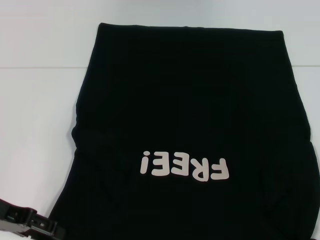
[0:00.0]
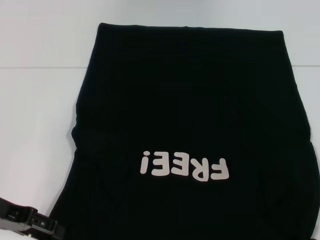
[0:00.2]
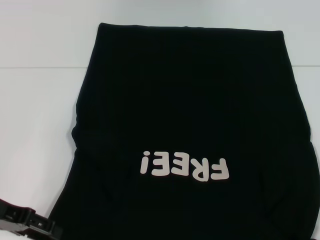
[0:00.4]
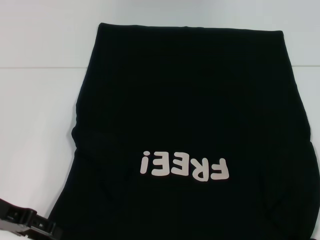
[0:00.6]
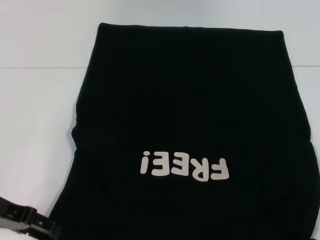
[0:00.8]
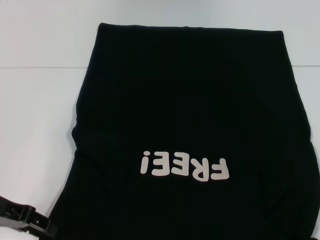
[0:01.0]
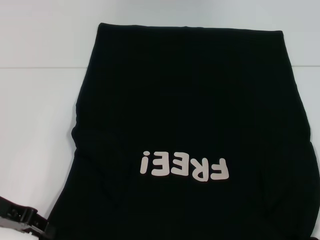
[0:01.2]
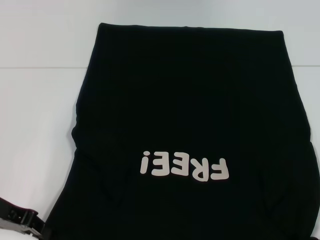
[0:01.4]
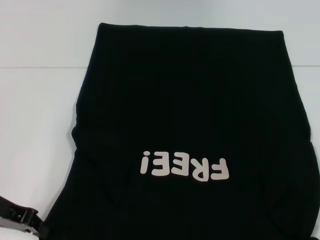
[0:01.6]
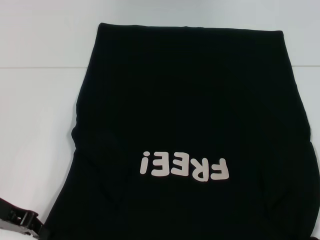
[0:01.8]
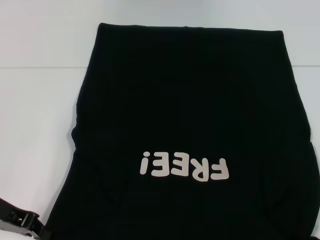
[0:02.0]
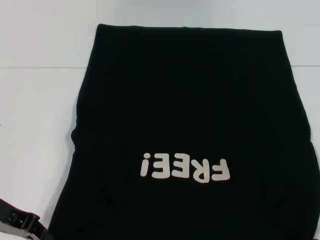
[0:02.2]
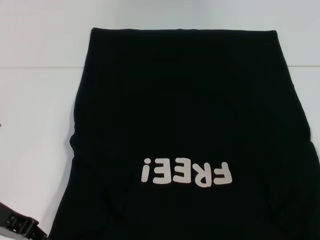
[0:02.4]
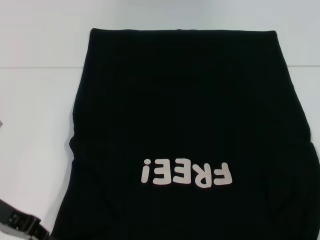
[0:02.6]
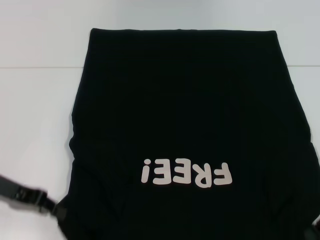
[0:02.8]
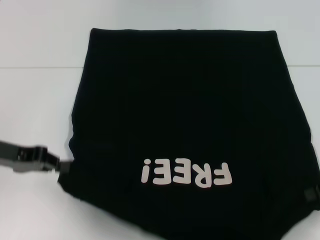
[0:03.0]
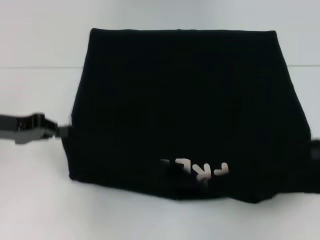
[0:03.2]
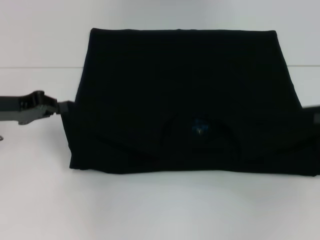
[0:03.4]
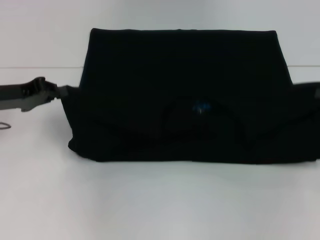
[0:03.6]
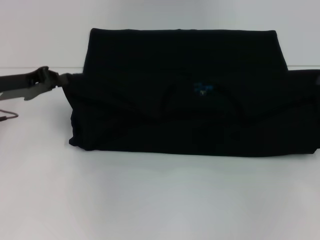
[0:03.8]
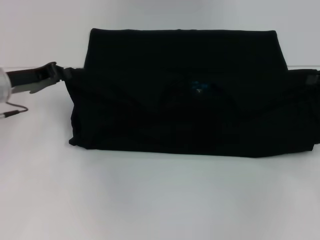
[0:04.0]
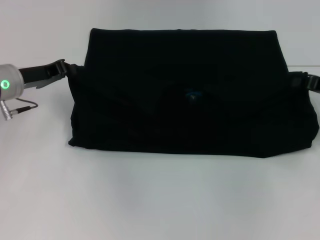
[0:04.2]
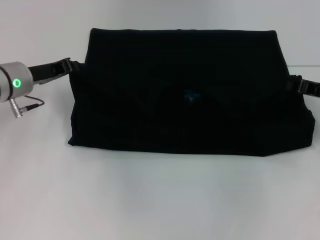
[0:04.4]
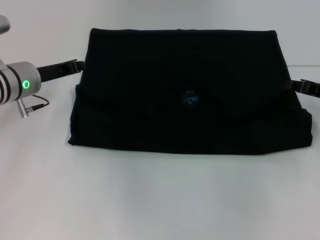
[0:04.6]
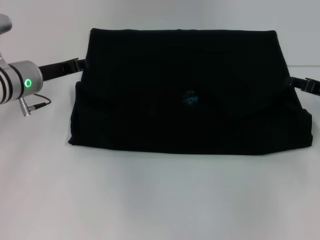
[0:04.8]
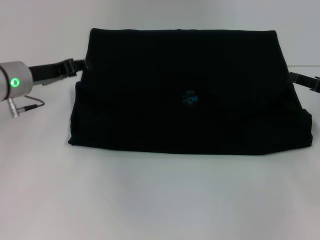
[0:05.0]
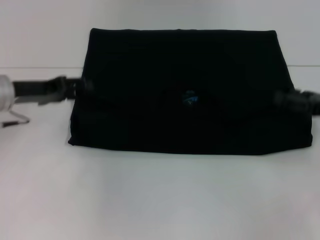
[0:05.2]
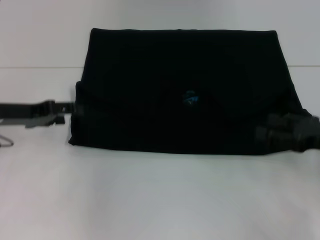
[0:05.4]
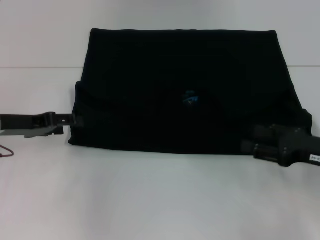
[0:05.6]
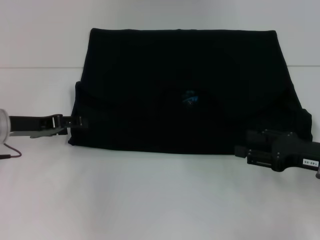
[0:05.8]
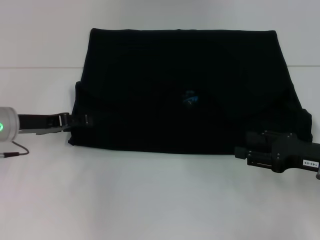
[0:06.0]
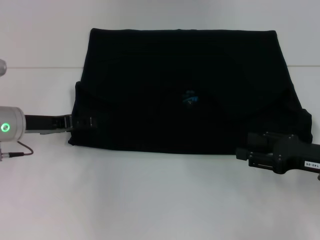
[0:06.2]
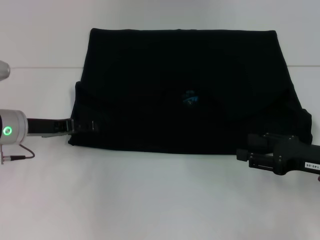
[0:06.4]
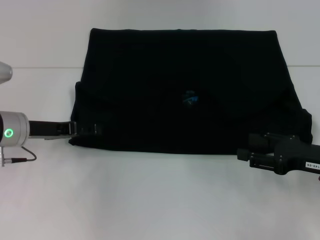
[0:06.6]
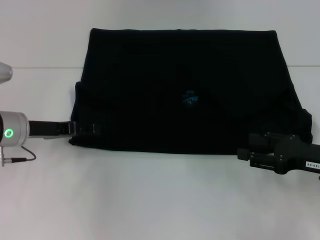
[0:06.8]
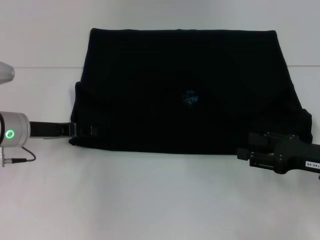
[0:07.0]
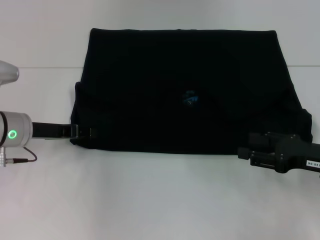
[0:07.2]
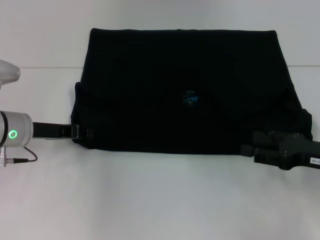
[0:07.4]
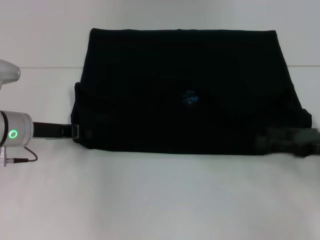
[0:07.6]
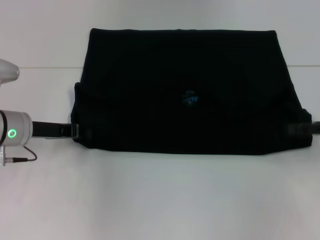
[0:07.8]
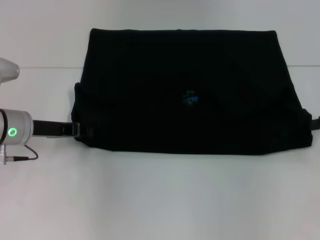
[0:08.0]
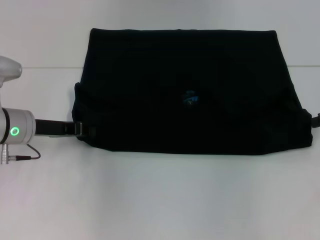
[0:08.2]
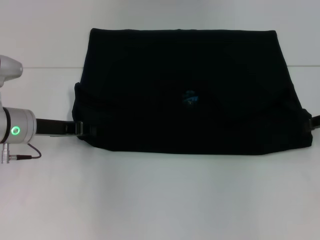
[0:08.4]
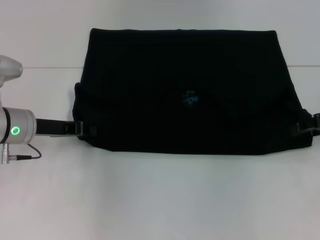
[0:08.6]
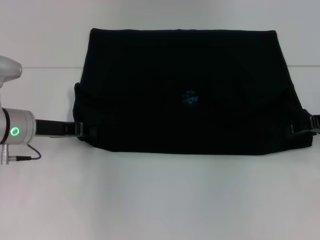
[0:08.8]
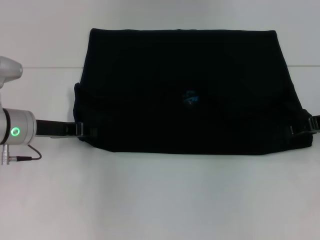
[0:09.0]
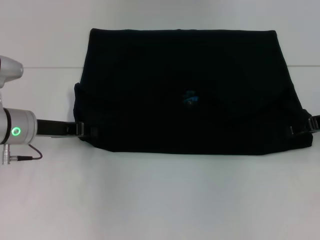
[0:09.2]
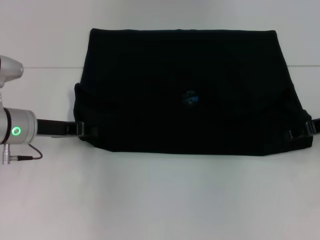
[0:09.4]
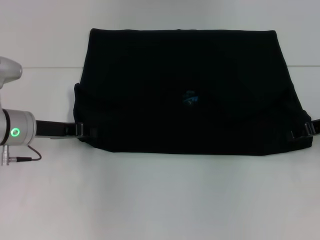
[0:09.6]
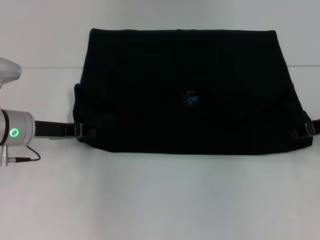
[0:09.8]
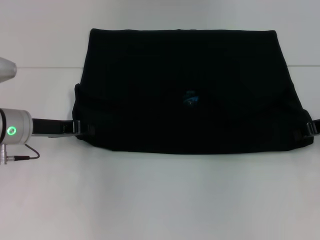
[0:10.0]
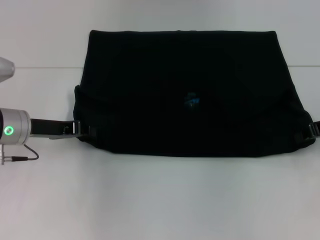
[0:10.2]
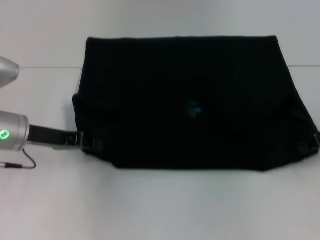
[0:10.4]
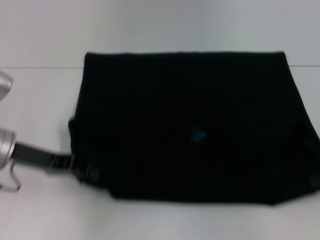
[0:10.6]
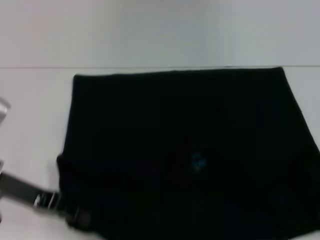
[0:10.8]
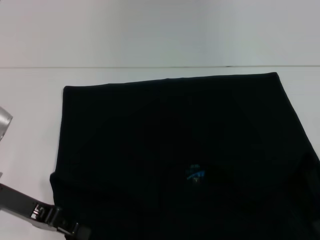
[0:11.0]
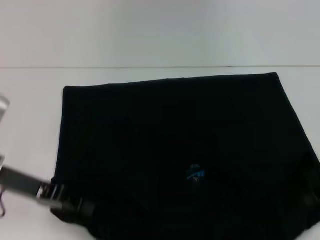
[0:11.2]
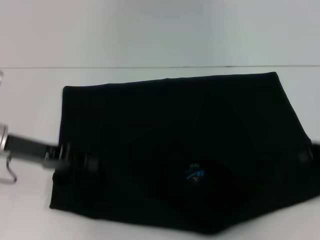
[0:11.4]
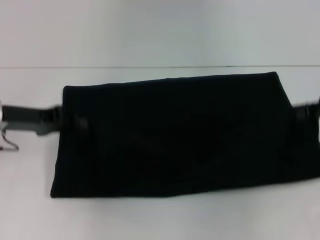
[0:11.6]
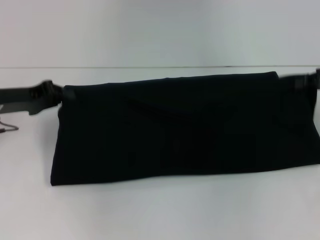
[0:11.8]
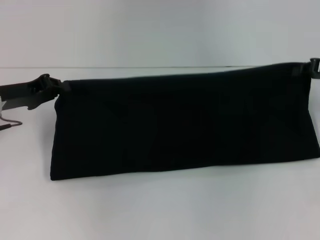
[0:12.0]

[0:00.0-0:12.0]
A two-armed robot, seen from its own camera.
Step, 0:00.0 to 0:02.2: Grab the bottom left corner with your left hand.
Step, 0:02.4 to 0:04.8: Fold the clothes with your left hand.
Step, 0:02.4 to 0:04.8: Fold the clothes with your right hand.
Step, 0:05.0 to 0:10.8: Pull the clothes with your left hand.
Step, 0:05.0 to 0:10.8: Pull the clothes with your right hand.
0:00.0 to 0:01.6: The left gripper closes.
0:03.0 to 0:04.4: The left gripper moves forward and to the right, roughly 10 cm. Meanwhile the right gripper heads forward, covering roughly 10 cm.
0:04.4 to 0:06.0: The right gripper moves backward, about 10 cm, and opens up; the left gripper moves approximately 5 cm, and opens up.
0:06.0 to 0:07.6: The left gripper closes up.
0:07.6 to 0:09.0: The right gripper heads forward, covering roughly 10 cm.
0:09.0 to 0:10.4: The right gripper closes.
0:10.4 to 0:12.0: The left gripper travels backward and back again, roughly 5 cm each way.

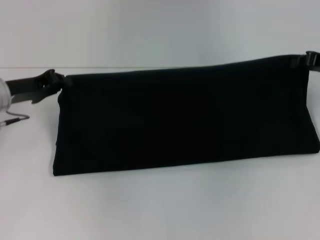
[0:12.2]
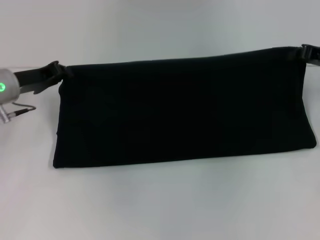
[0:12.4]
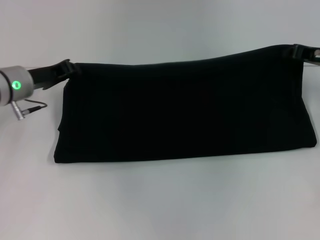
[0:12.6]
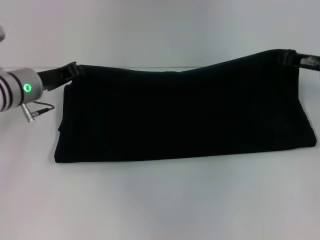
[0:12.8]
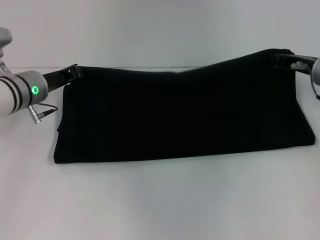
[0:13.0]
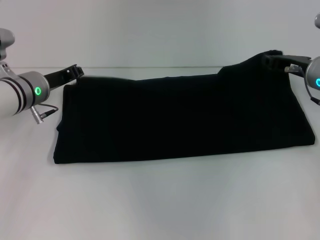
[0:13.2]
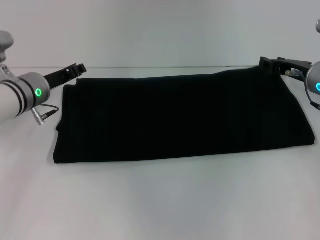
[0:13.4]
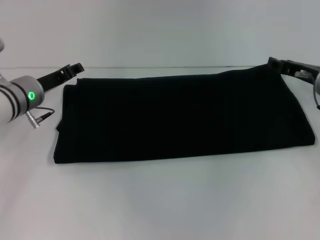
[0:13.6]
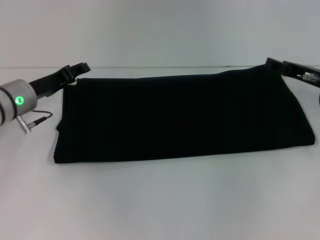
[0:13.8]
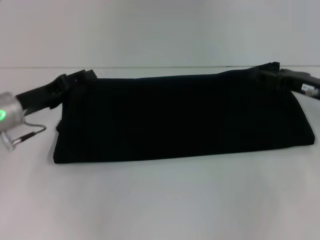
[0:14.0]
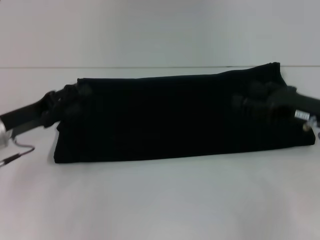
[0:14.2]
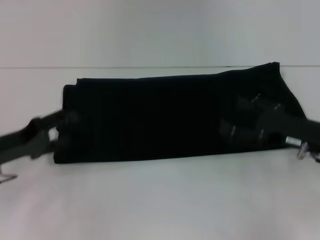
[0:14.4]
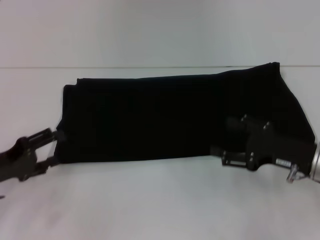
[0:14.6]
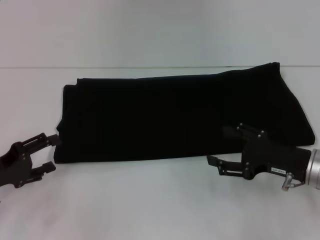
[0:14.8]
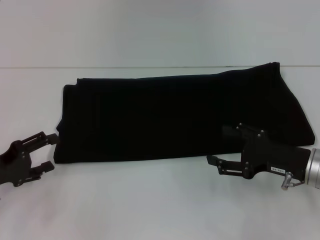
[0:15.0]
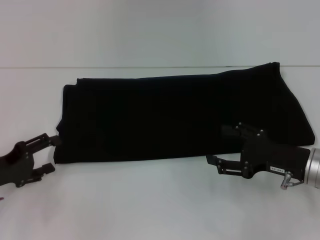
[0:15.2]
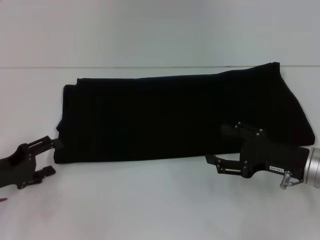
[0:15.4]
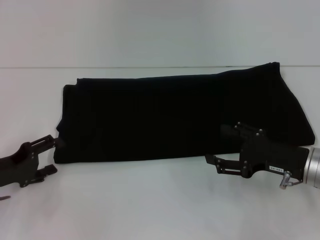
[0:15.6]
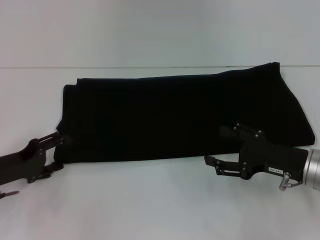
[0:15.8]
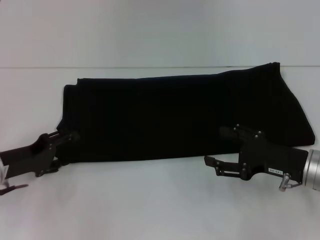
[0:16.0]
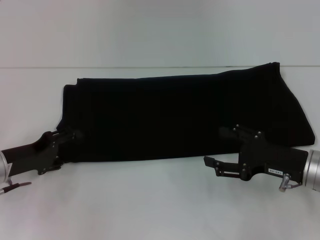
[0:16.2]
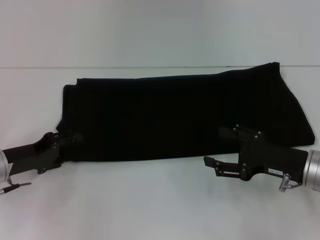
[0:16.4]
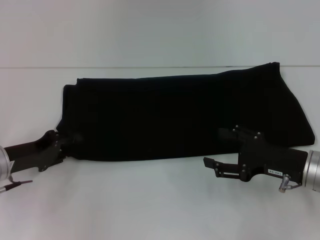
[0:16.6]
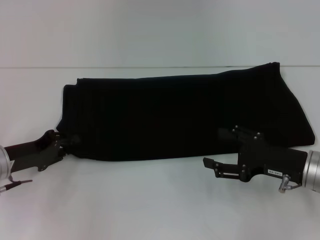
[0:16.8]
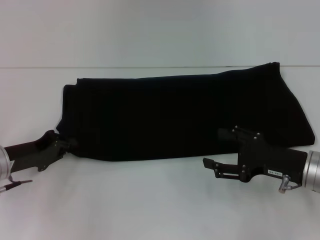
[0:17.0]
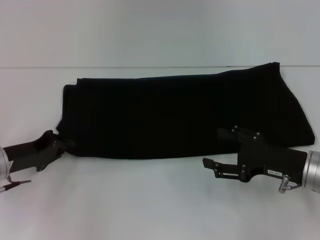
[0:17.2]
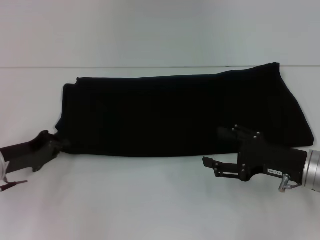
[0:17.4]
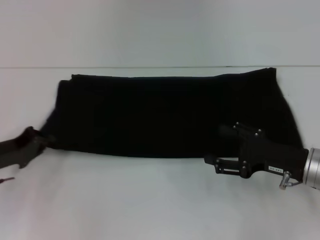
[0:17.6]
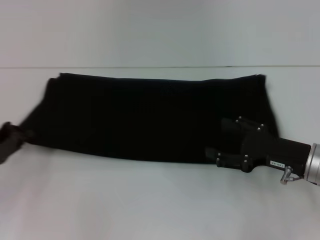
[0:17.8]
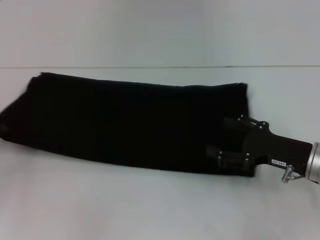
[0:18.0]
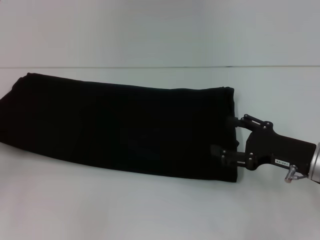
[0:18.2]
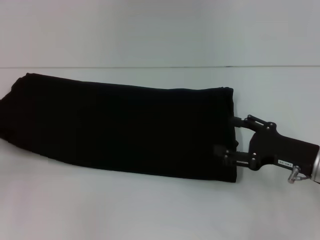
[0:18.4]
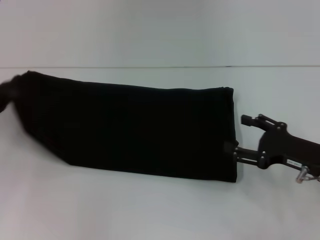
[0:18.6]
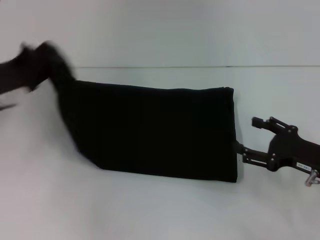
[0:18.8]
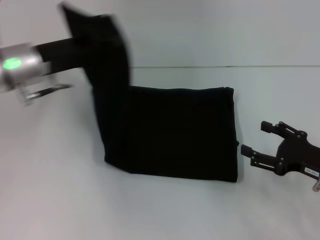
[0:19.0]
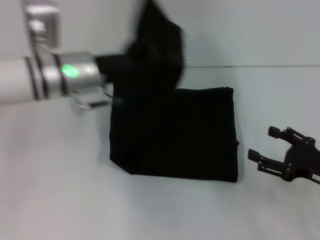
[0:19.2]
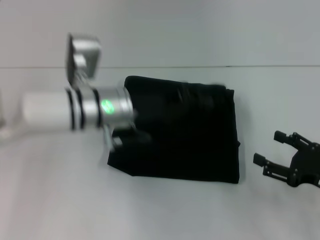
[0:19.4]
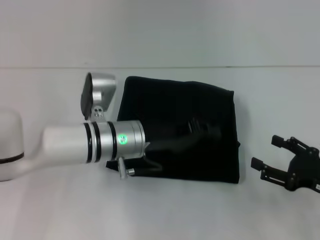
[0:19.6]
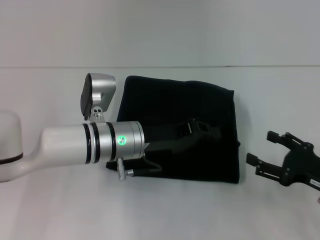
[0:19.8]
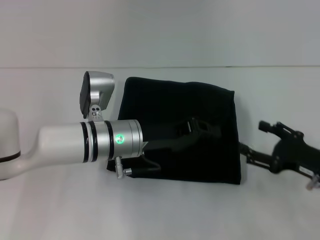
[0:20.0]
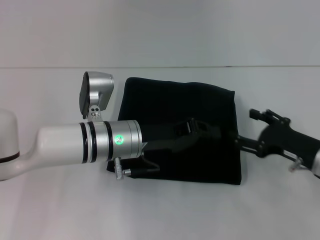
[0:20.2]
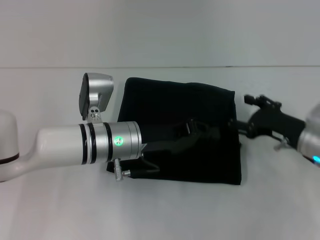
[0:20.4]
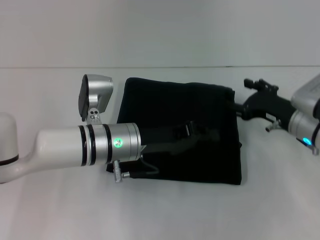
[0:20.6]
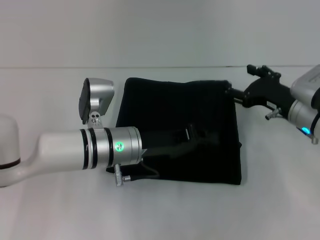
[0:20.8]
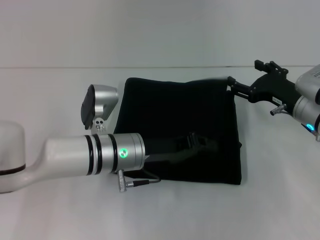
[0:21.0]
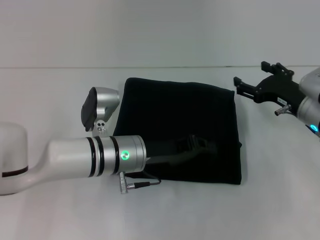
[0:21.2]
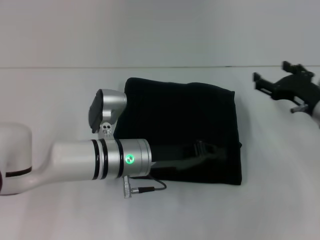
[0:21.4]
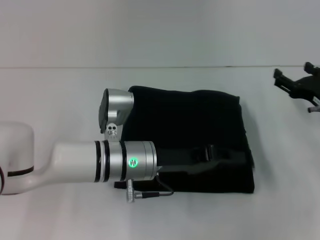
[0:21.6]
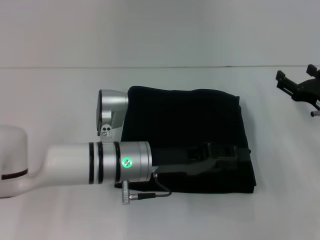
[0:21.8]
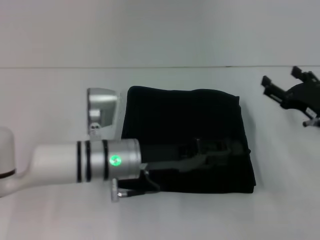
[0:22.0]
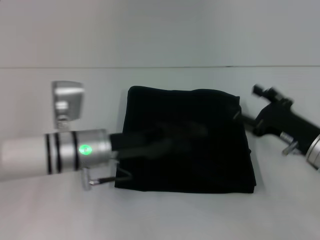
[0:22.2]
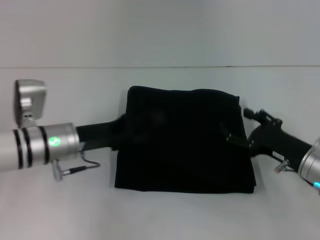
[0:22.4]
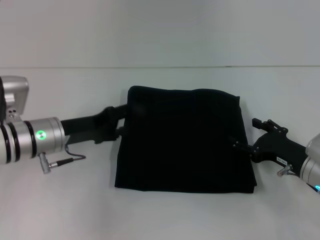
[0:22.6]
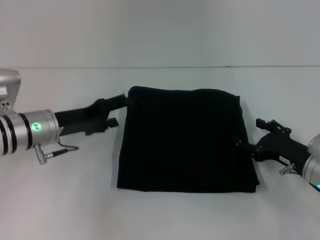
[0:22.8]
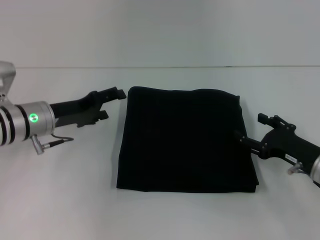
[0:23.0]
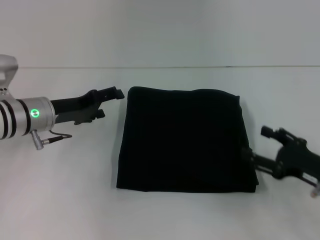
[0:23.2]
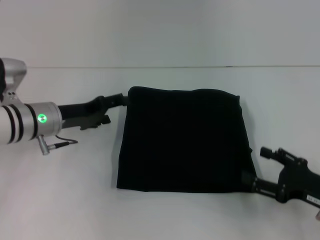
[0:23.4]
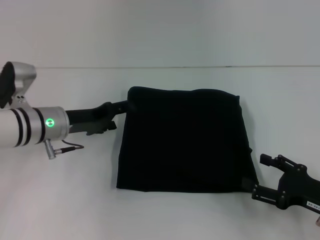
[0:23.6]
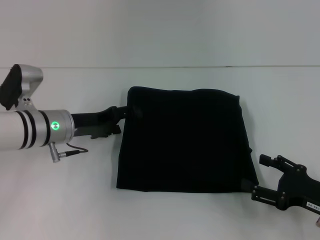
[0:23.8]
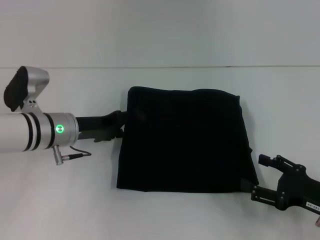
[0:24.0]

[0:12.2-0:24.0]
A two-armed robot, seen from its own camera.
Step, 0:12.2 to 0:21.6: Fold the clothes with your left hand.
0:12.2 to 0:13.6: The right gripper is displaced downward and to the left by about 10 cm, and opens, while the left gripper moves to the right, approximately 5 cm.
0:13.6 to 0:15.2: The right gripper moves backward, approximately 10 cm, and opens up; the left gripper heads backward and to the left, covering roughly 15 cm, and opens.
0:15.2 to 0:16.6: The left gripper moves some 5 cm.
0:16.6 to 0:18.2: The left gripper shifts about 10 cm to the left, and closes up.
0:18.2 to 0:19.6: The right gripper moves backward and to the right, approximately 10 cm, while the left gripper travels to the right by roughly 30 cm.
0:19.6 to 0:21.0: The right gripper travels forward and to the left by roughly 15 cm.
0:21.0 to 0:22.6: The right gripper moves backward and downward, some 10 cm; the left gripper travels to the left by approximately 10 cm, and opens.
0:22.6 to 0:24.0: The right gripper moves backward, some 5 cm.
